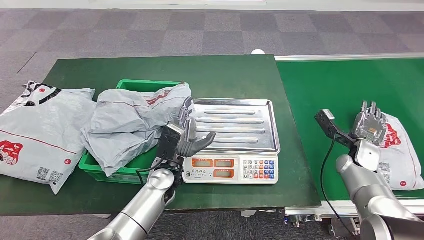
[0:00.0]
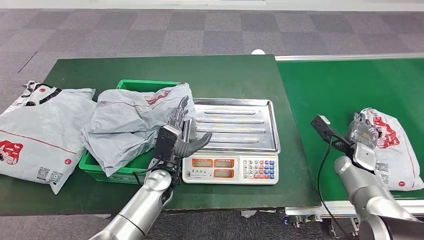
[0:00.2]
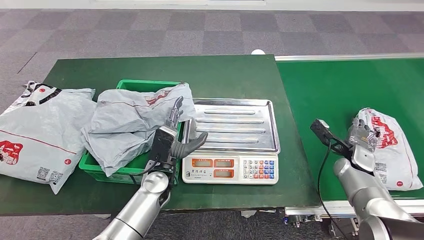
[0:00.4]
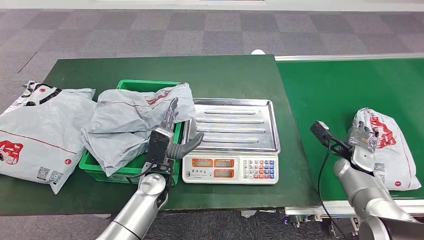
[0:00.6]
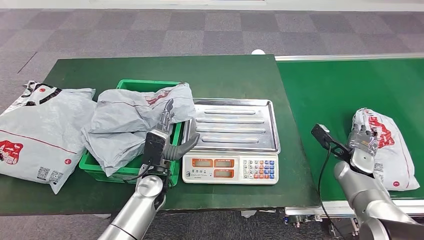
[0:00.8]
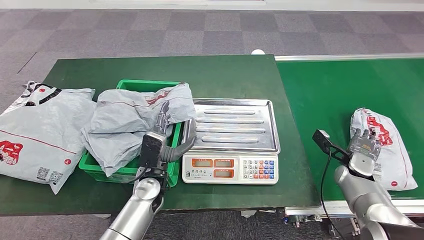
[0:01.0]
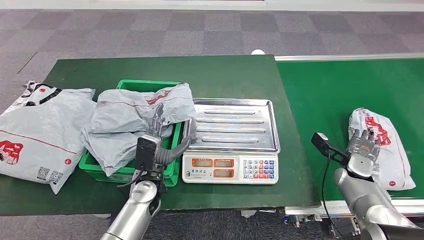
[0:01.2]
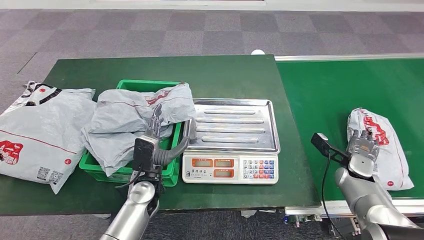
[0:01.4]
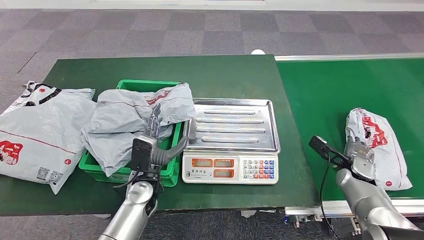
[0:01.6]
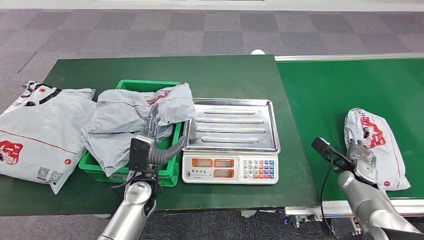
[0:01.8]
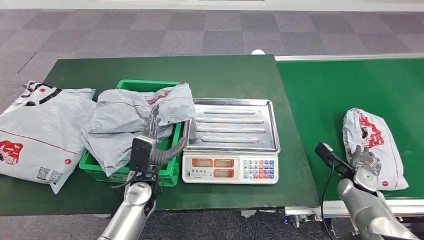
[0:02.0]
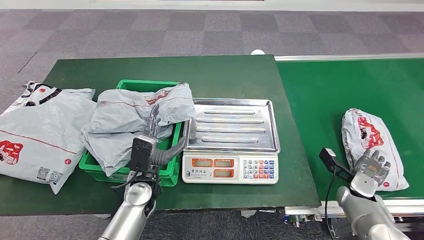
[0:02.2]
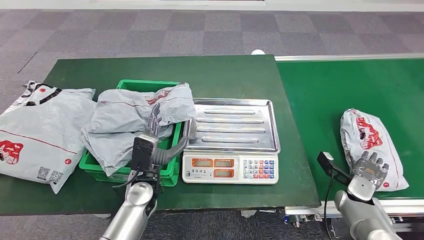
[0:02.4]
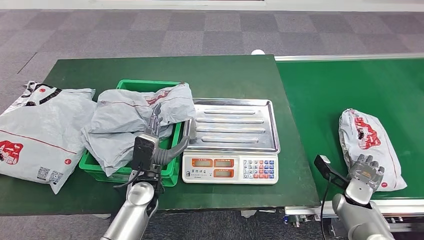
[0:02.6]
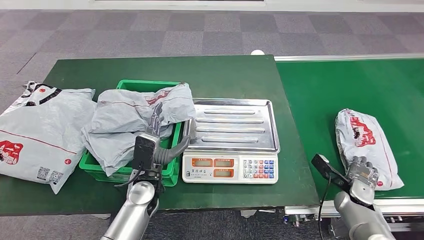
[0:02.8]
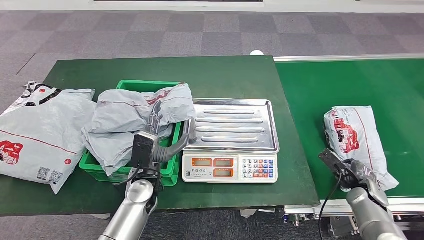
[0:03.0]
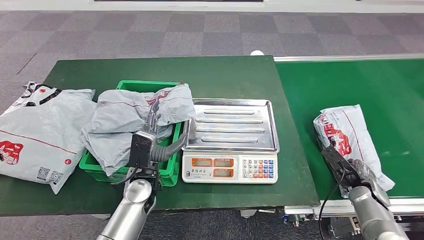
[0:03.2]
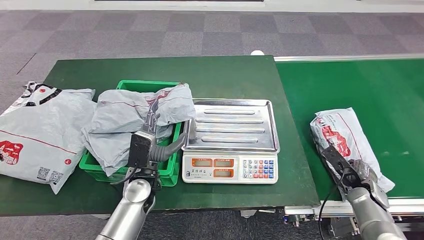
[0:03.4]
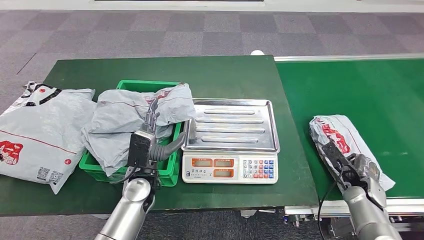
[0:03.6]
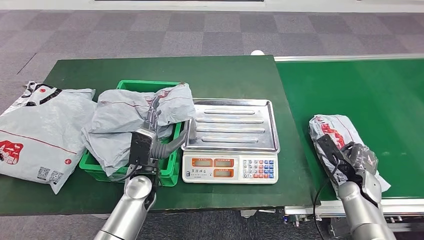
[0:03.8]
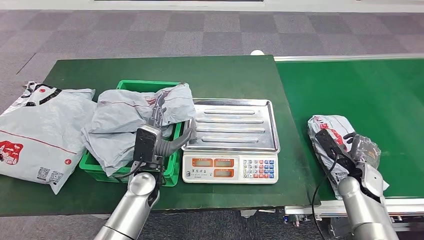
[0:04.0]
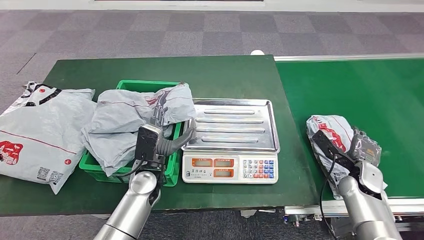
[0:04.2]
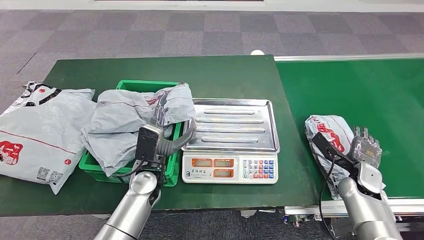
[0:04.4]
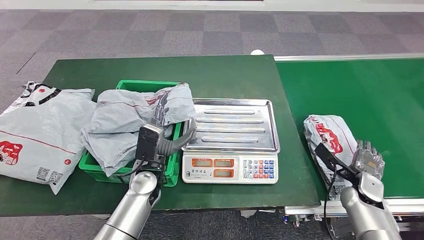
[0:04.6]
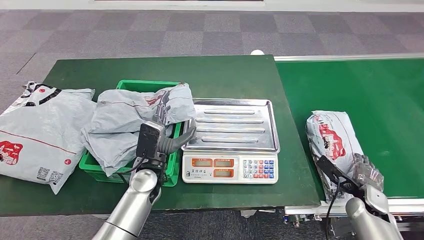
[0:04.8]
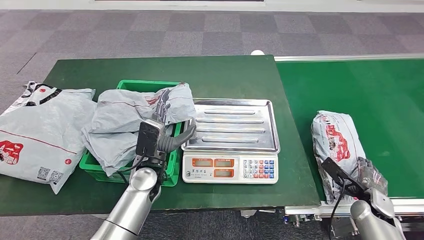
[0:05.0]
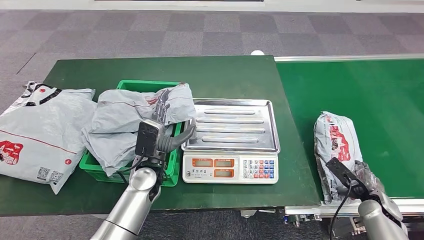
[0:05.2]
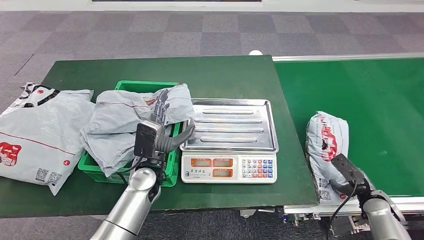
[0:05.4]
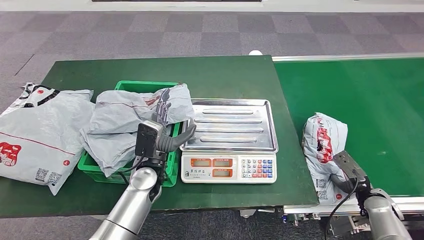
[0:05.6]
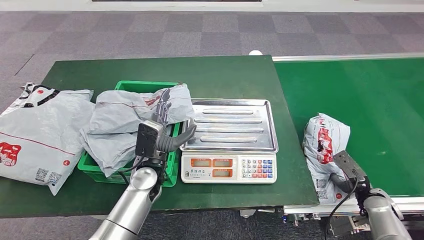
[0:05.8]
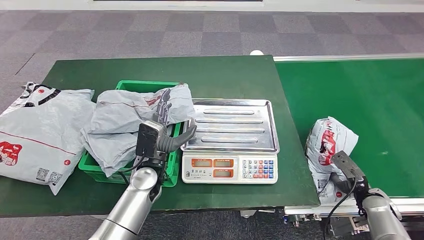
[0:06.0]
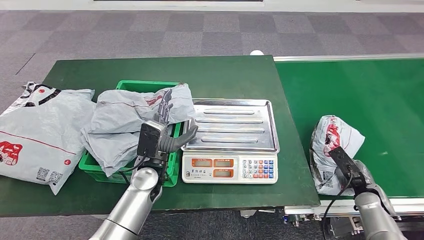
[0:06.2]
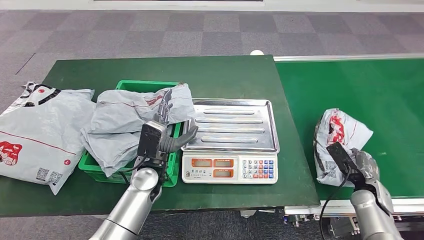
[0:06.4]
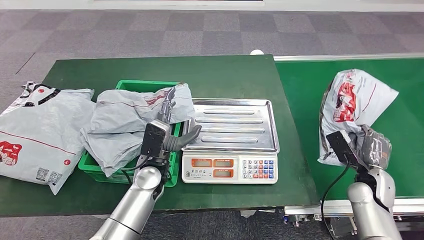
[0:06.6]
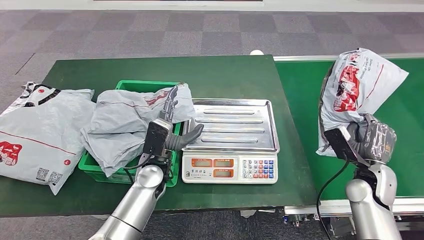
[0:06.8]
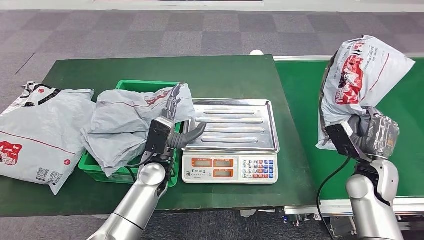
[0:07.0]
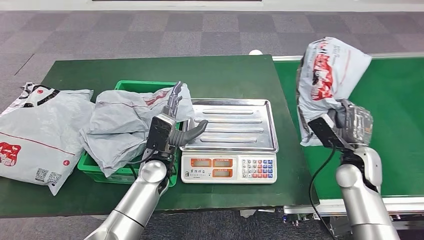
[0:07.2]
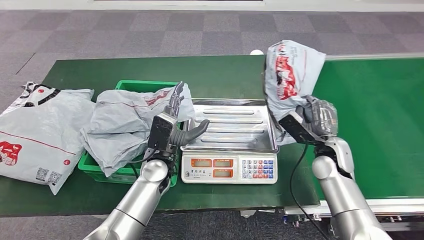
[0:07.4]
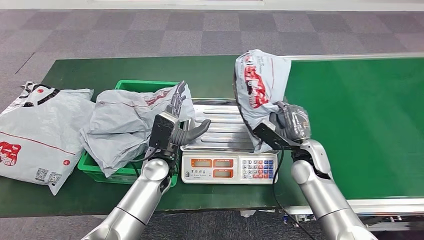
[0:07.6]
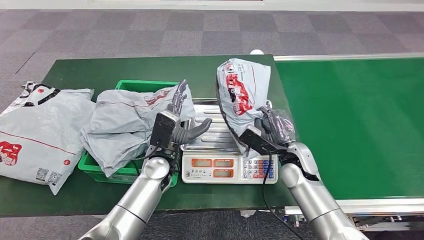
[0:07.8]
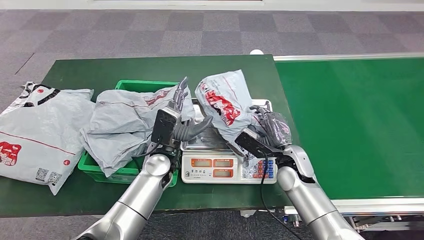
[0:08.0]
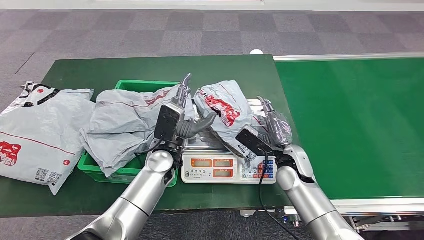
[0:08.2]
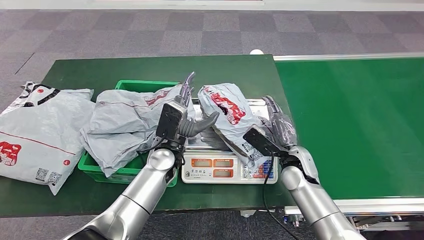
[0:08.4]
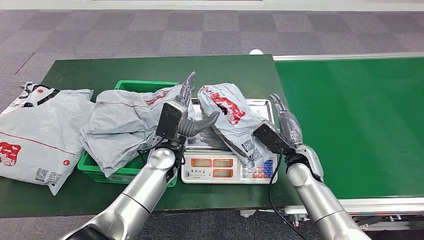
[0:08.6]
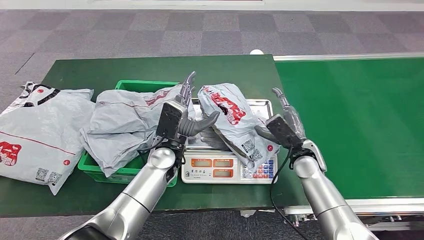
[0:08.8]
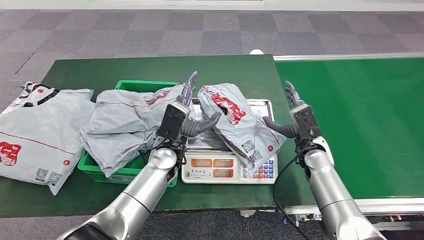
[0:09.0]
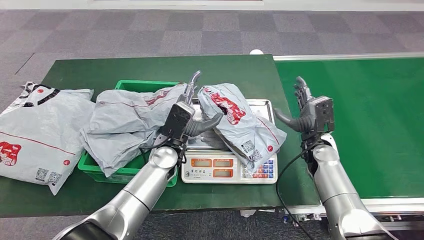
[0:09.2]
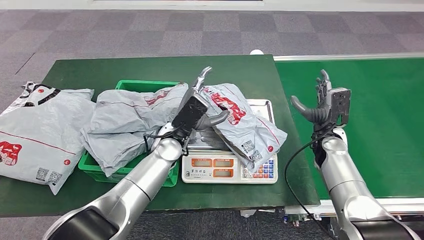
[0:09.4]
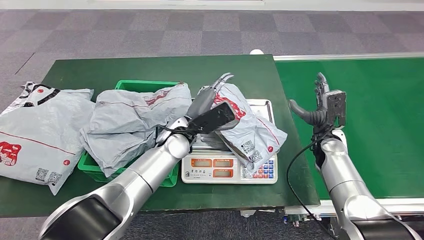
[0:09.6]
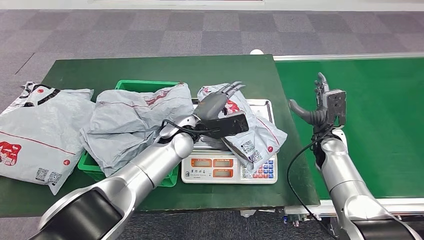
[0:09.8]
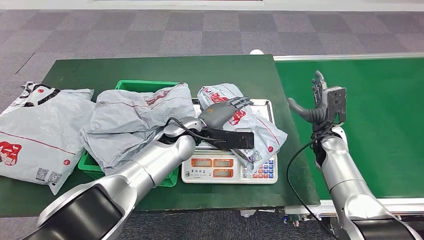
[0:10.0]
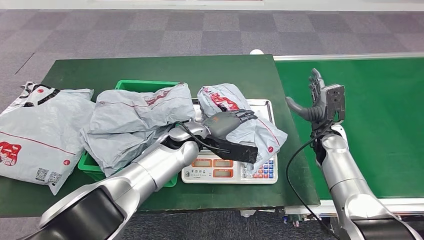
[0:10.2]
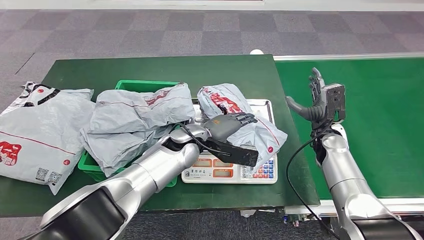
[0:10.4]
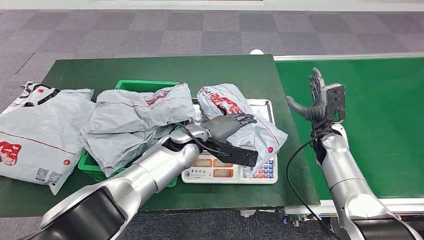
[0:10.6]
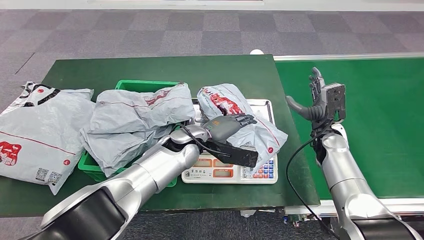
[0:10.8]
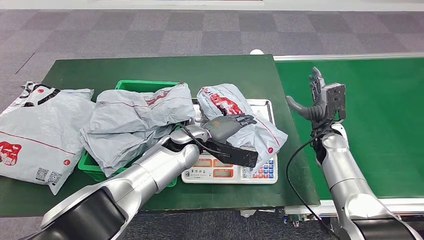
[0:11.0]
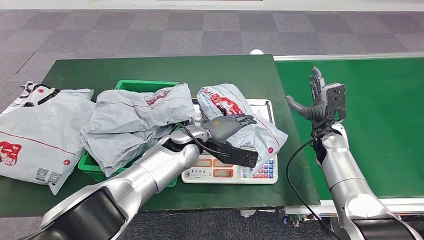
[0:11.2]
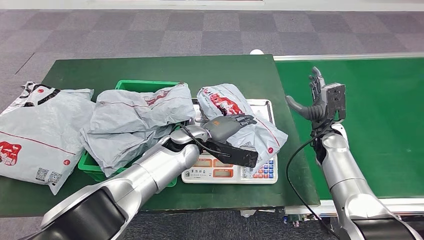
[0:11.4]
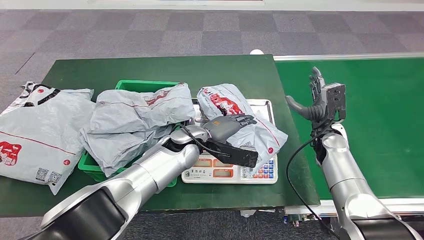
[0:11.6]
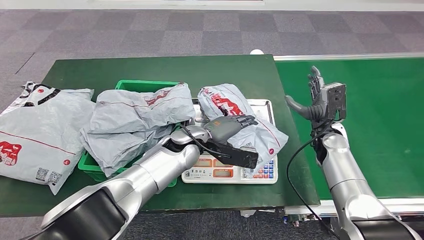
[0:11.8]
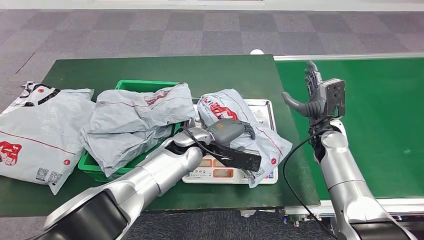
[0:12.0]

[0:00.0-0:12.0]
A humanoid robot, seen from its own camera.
Step, 0:05.4 to 0:07.6: Pick up the parcel from the conveyor belt.
Step, 0:07.8 to 0:09.4: Place the parcel onto the inbound machine.
0:00.0 to 0:01.6: The left hand moves some 5 cm; the right hand moves roughly 5 cm.
0:01.6 to 0:03.0: The right hand travels backward by about 5 cm.
0:03.0 to 0:04.4: The right hand heads upward, covering roughly 5 cm.
0:04.4 to 0:06.0: The right hand moves to the right, downward and backward, roughly 10 cm.
0:09.0 to 0:10.4: The left hand moves about 5 cm. Meanwhile the right hand ends up some 5 cm from where it was.
0:10.4 to 0:12.0: The hands move only a little.

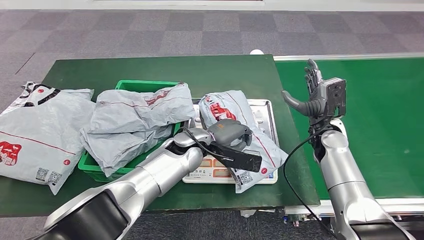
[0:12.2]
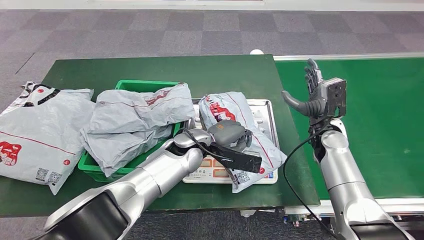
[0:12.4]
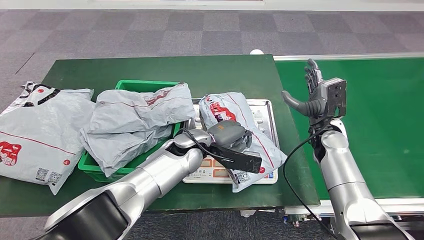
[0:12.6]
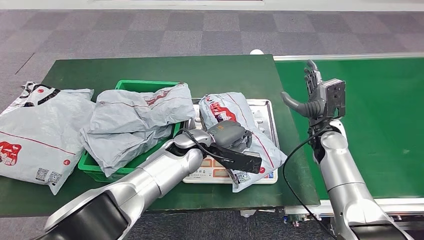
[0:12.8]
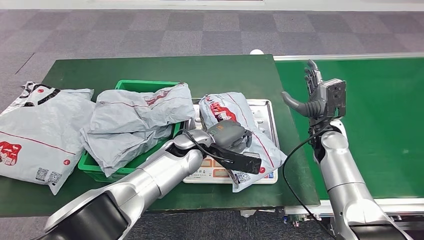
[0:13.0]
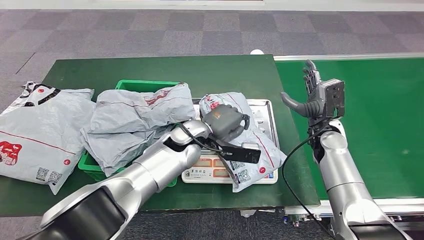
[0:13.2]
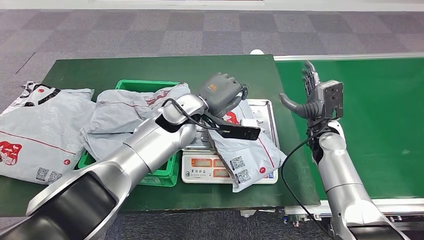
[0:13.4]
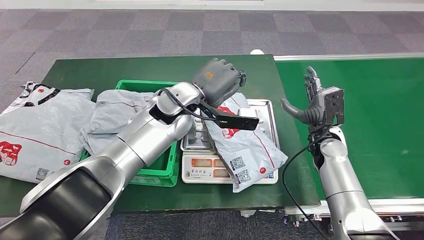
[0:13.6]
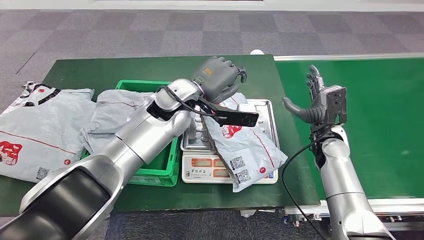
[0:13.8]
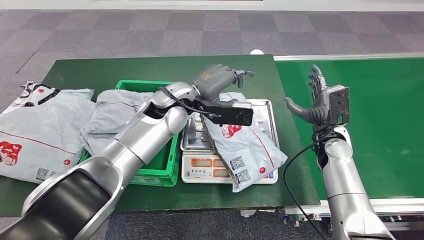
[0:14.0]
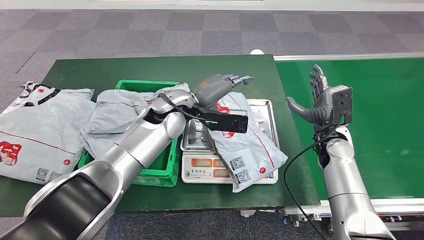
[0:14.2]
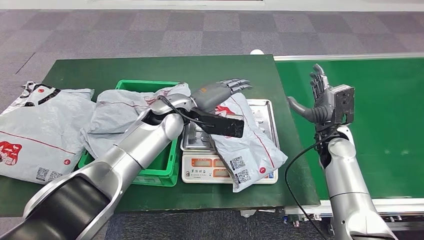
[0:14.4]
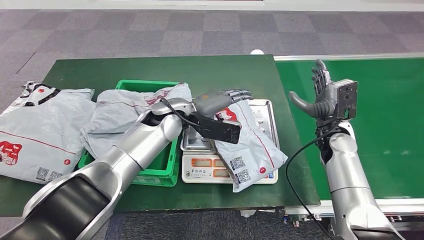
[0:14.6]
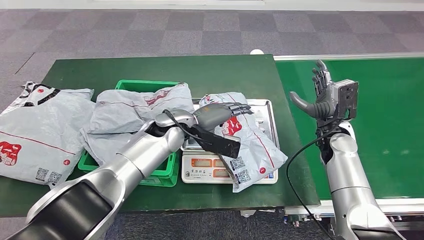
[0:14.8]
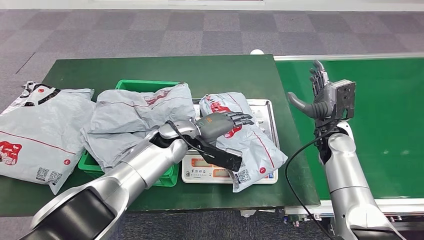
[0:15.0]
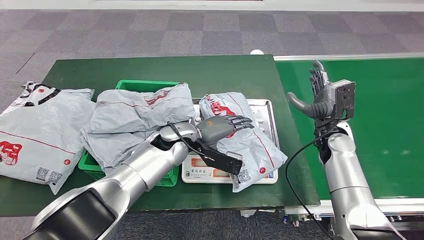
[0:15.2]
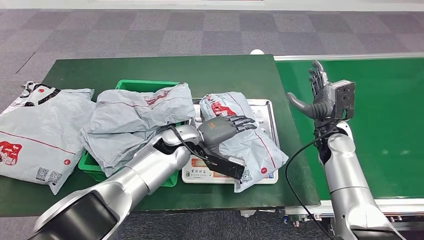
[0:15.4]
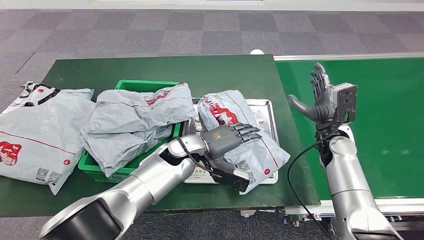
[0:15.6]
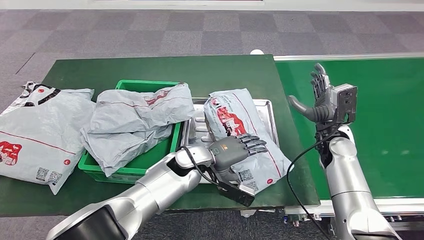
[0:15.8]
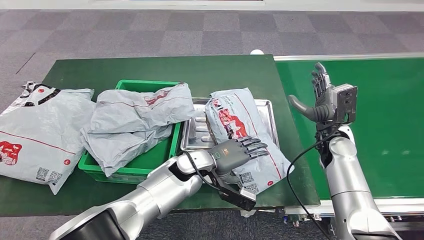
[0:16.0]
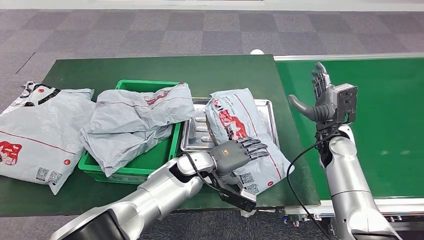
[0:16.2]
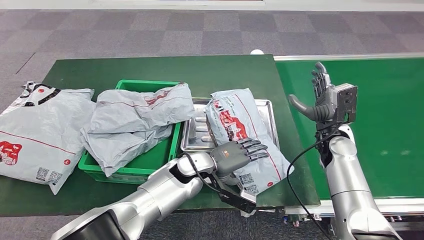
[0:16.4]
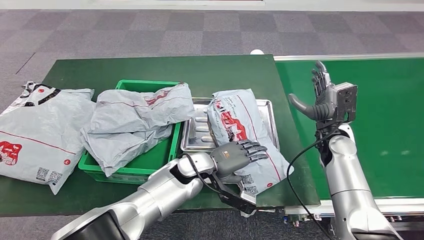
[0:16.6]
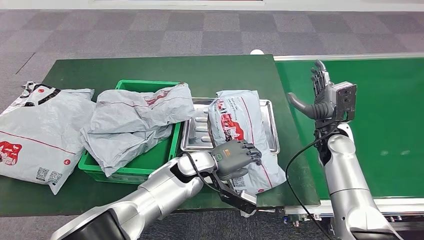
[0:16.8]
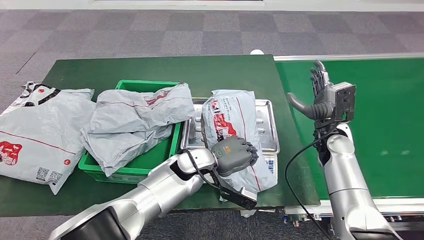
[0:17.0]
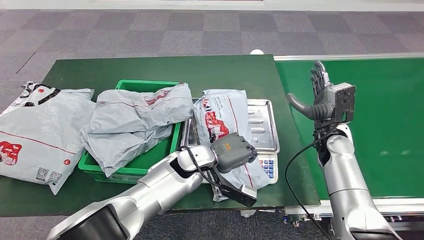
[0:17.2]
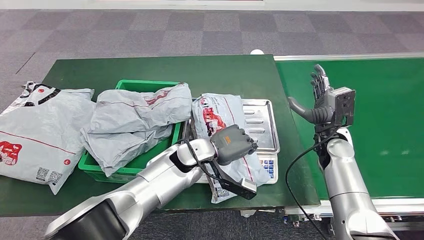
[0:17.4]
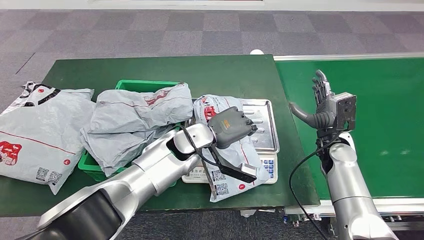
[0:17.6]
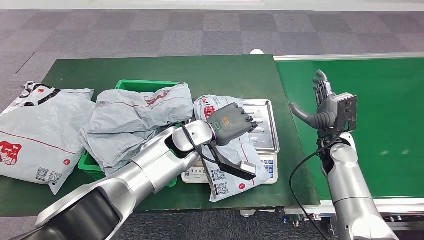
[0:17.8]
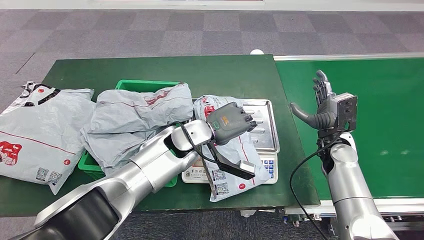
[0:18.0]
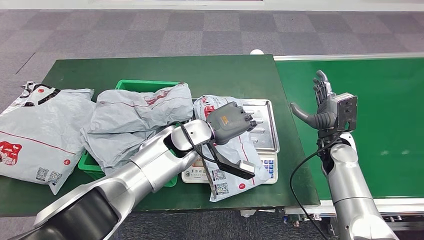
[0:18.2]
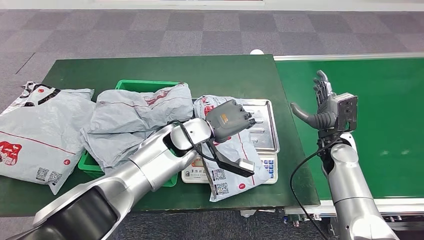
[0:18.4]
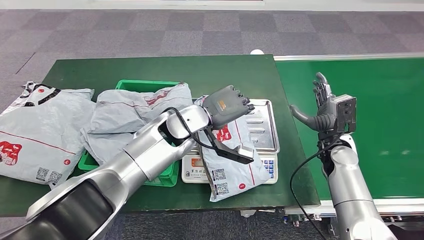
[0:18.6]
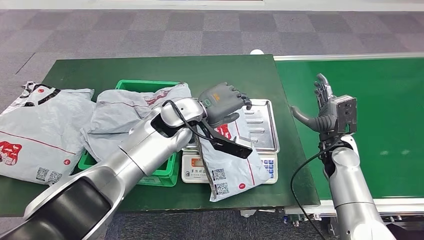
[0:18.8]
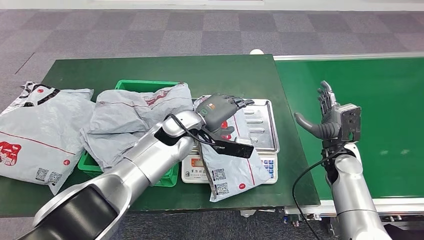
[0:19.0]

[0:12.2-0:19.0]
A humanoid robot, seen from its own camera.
0:15.0 to 0:16.2: The left hand is displaced downward and backward by approximately 10 cm.
0:16.2 to 0:17.6: The left hand shifts approximately 5 cm upward.
